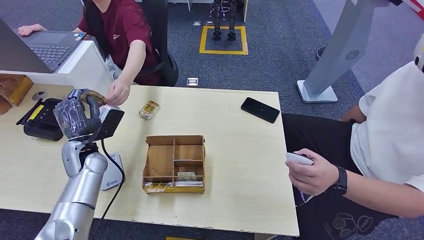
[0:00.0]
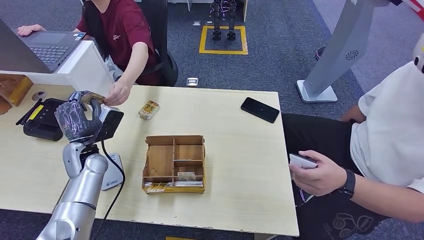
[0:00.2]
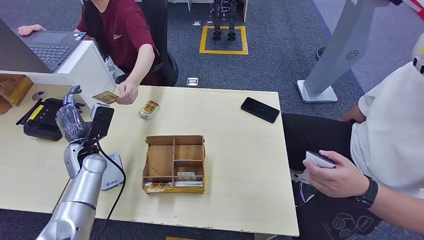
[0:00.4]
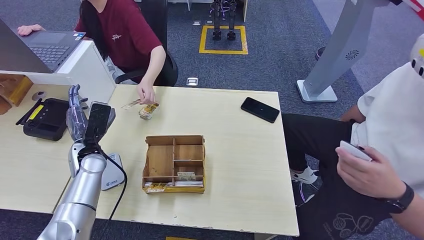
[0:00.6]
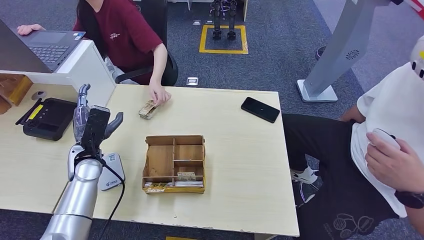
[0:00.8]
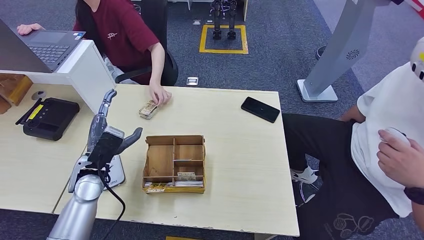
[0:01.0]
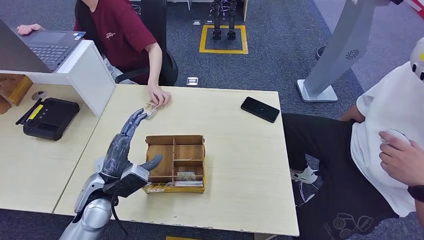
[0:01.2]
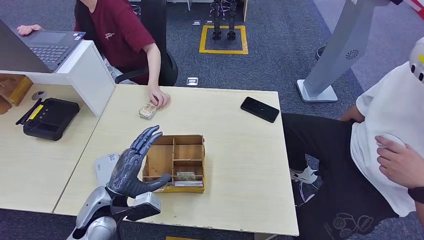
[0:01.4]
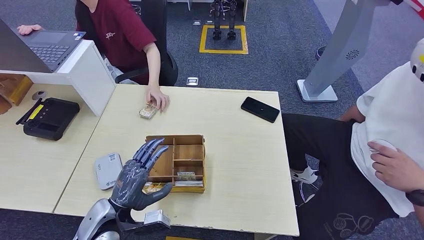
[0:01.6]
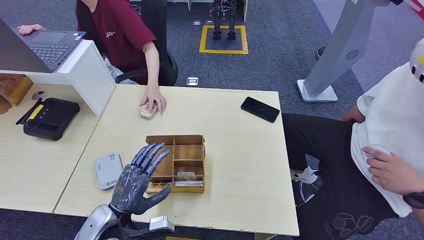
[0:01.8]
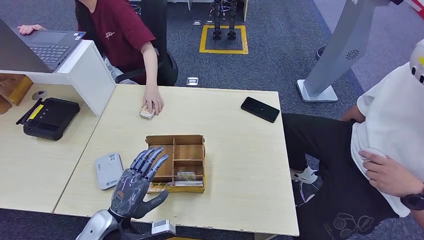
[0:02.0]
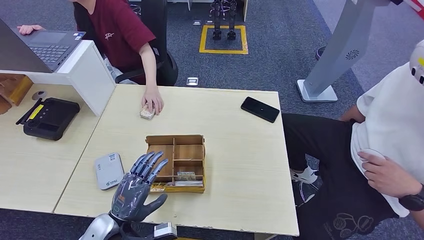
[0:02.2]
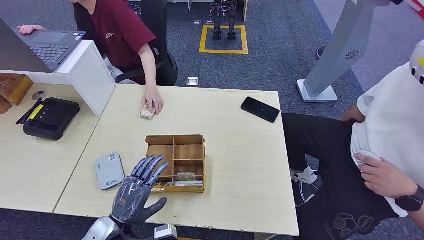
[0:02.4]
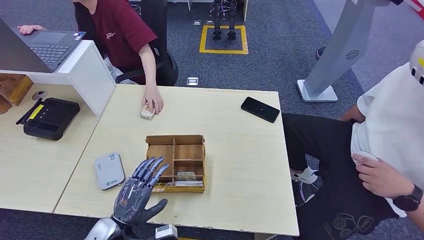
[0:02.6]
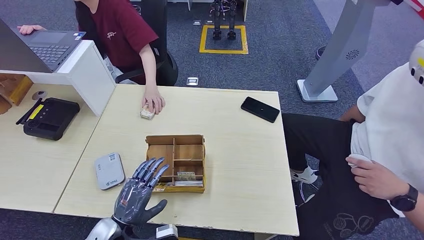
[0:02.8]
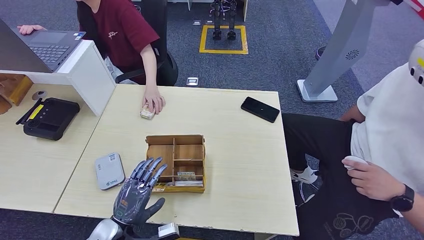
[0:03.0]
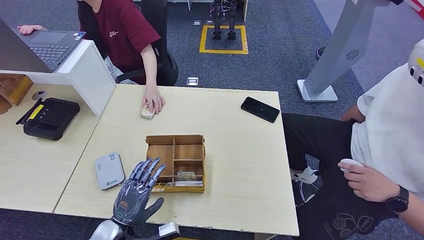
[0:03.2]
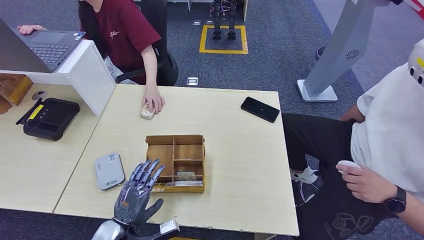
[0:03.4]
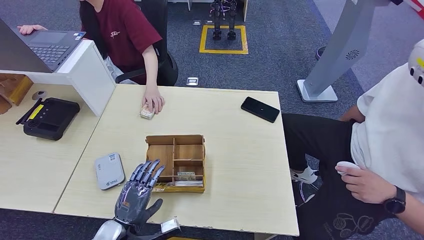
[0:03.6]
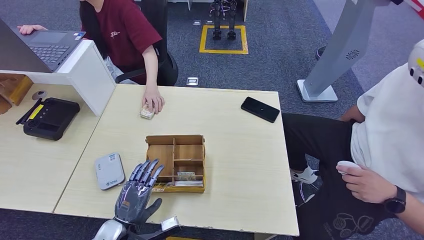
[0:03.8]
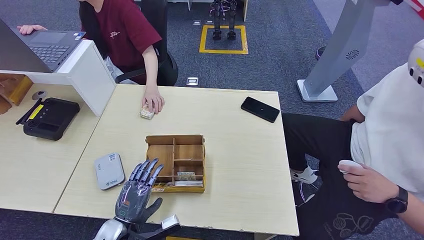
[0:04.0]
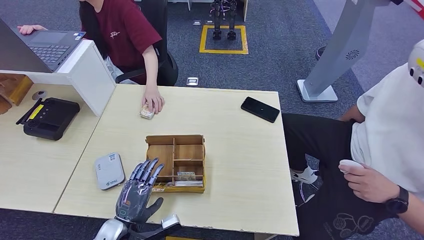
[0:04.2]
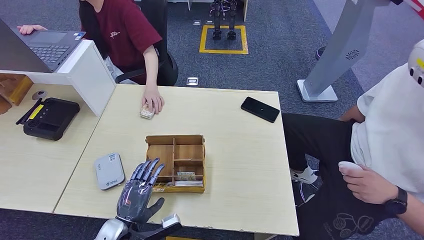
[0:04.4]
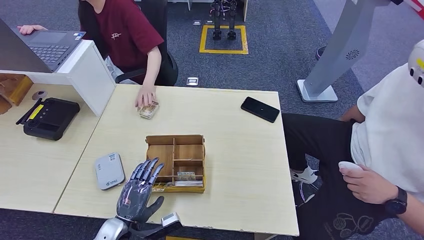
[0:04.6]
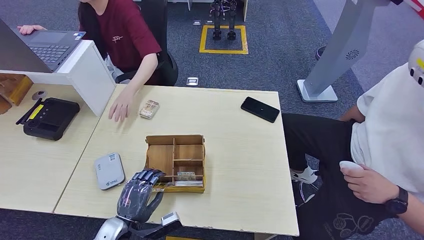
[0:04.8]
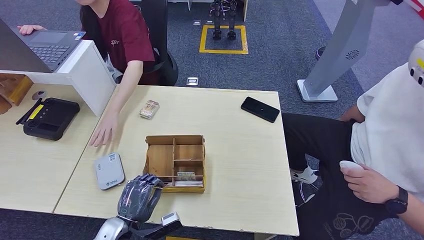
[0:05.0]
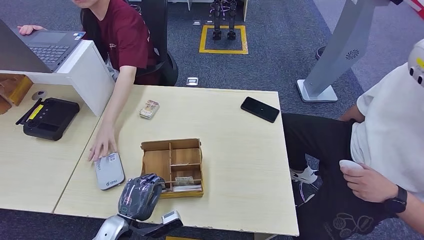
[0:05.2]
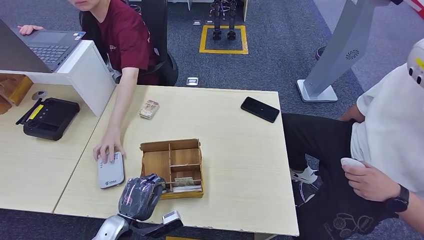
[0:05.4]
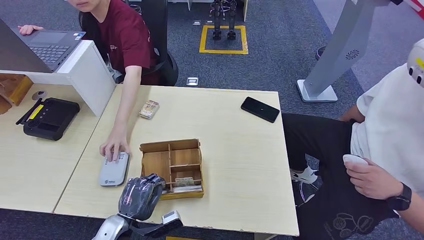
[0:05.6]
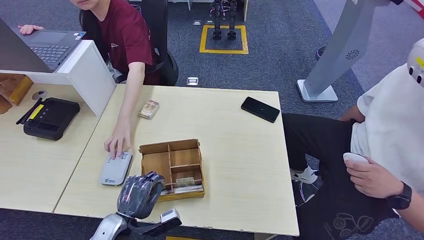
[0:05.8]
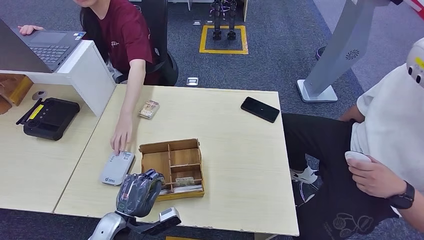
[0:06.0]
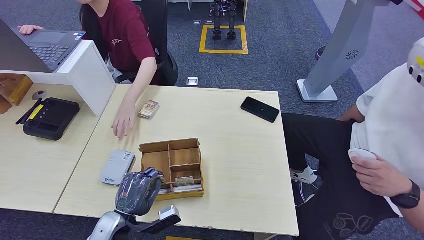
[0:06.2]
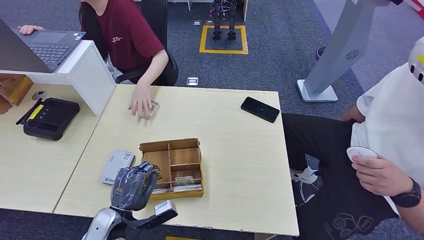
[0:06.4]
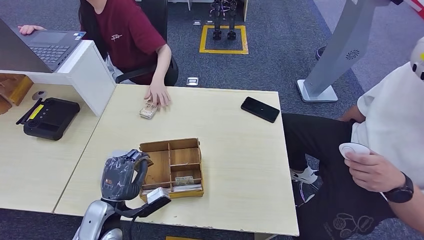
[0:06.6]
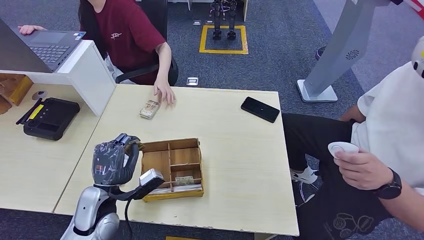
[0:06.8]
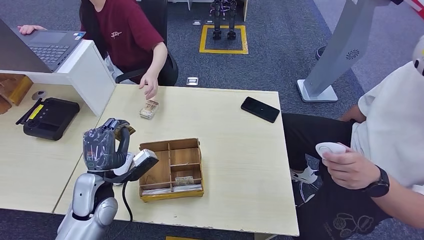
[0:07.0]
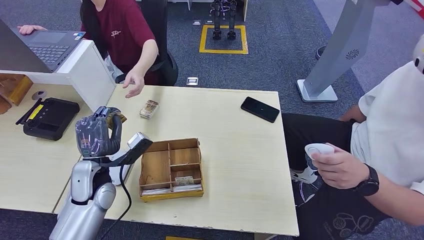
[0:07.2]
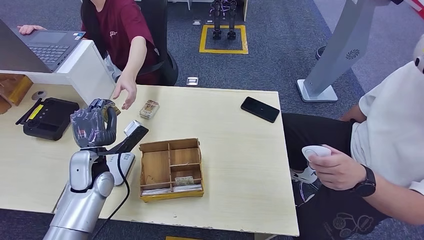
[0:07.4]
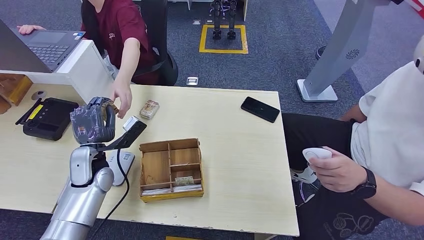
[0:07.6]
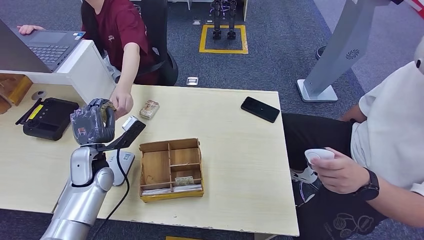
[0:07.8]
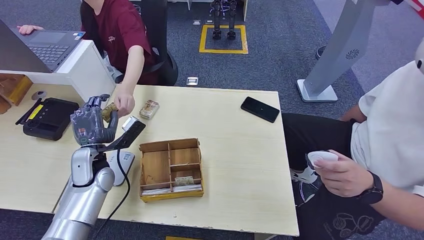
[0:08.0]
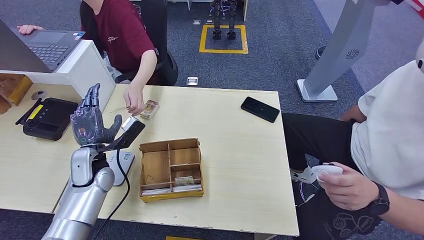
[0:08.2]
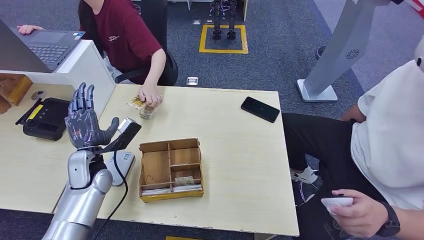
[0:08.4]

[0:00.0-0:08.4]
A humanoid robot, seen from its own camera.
Step, 0:00.4 to 0:06.8: Pick up the room key from the key card box.
Step, 0:07.2 to 0:08.4: Hand the room key to the person.
0:00.0 to 0:01.4: The left hand goes approximately 15 cm backward and to the right.
0:01.4 to 0:02.8: The left hand travels downward and backward by roughly 10 cm.
0:02.8 to 0:05.6: The hands move only a little.
0:05.6 to 0:07.0: The left hand is displaced upward and forward by roughly 15 cm.
0:07.0 to 0:08.4: The left hand heads forward, covering about 5 cm.
